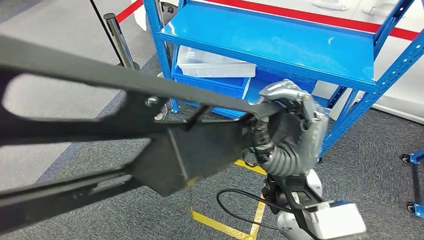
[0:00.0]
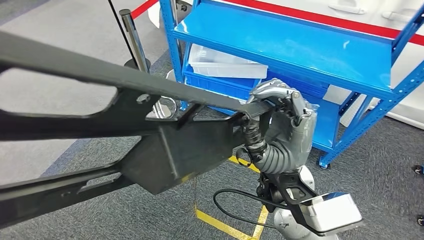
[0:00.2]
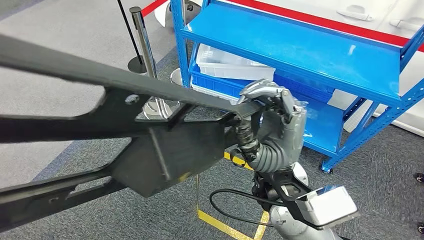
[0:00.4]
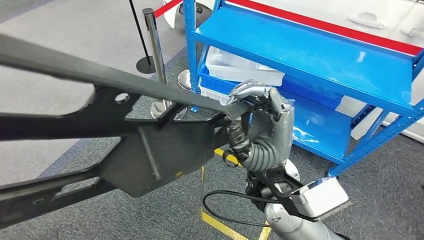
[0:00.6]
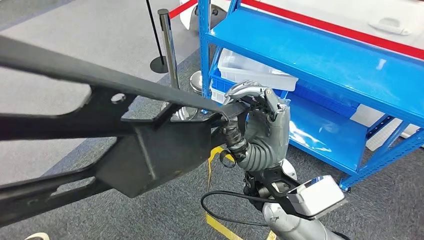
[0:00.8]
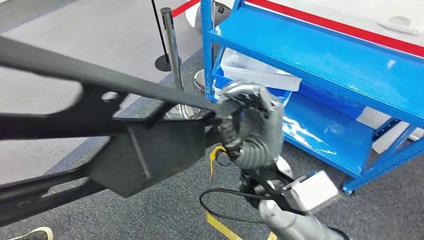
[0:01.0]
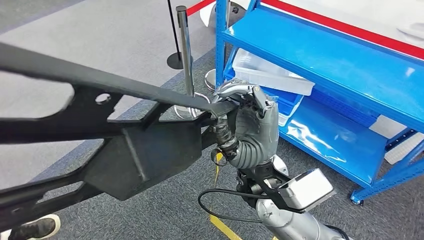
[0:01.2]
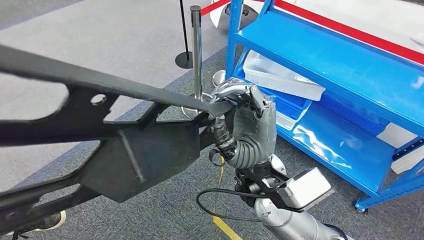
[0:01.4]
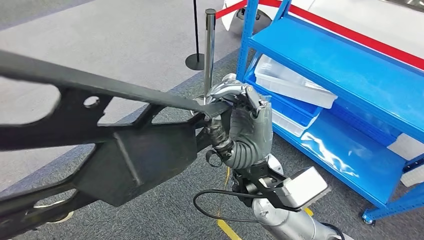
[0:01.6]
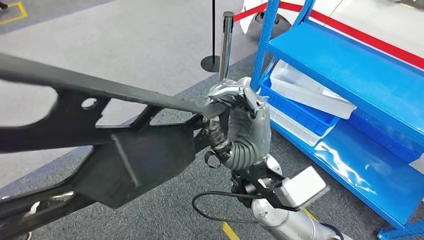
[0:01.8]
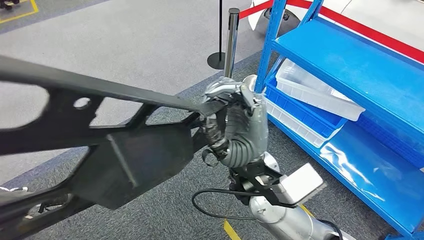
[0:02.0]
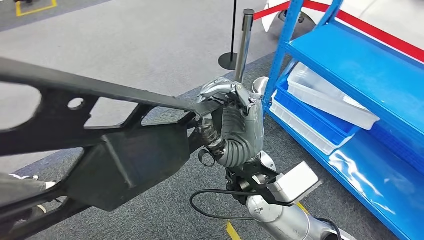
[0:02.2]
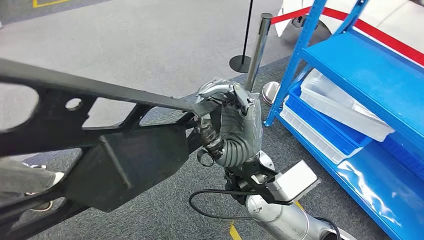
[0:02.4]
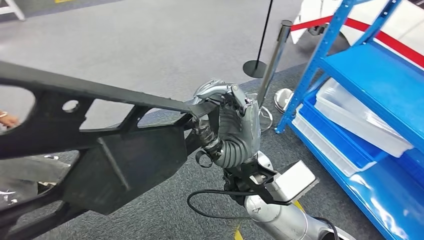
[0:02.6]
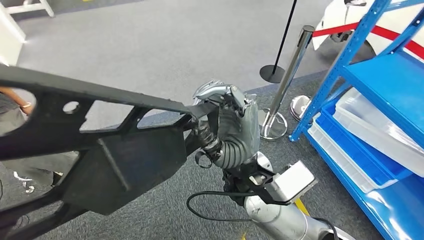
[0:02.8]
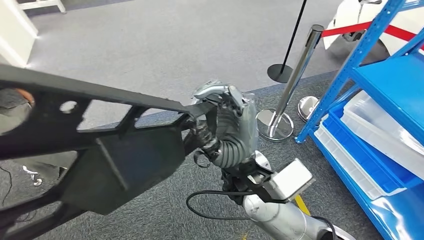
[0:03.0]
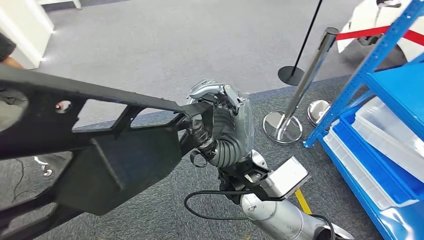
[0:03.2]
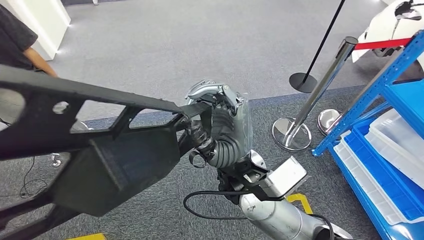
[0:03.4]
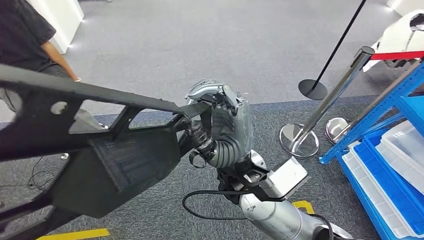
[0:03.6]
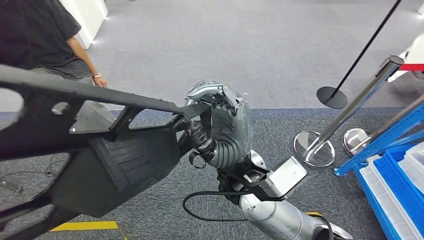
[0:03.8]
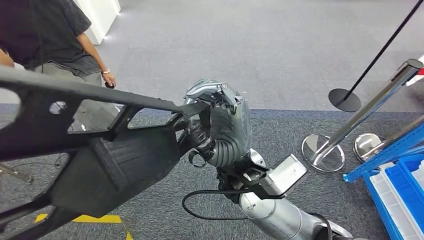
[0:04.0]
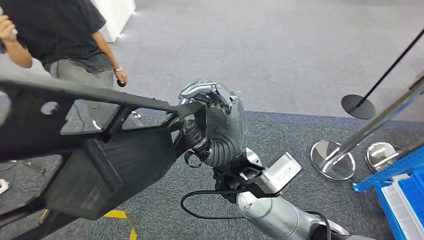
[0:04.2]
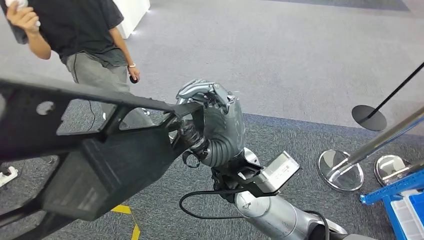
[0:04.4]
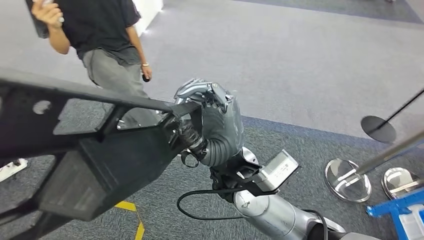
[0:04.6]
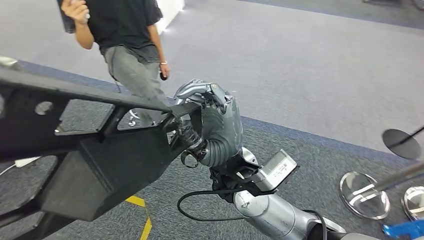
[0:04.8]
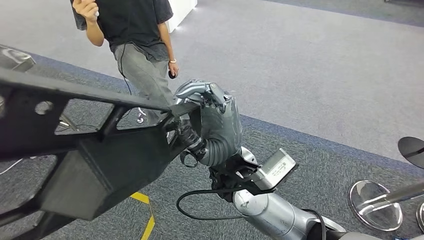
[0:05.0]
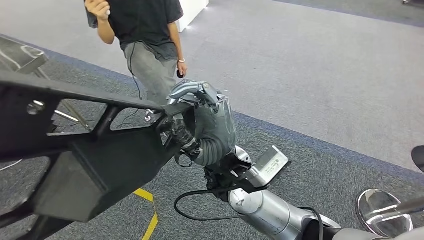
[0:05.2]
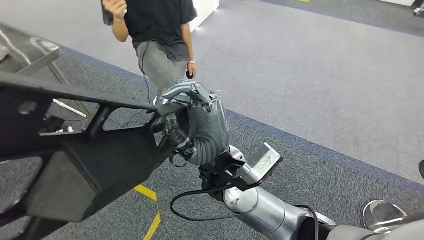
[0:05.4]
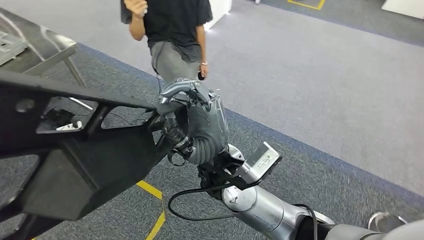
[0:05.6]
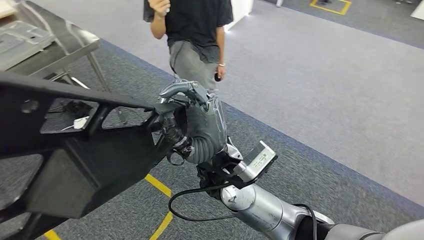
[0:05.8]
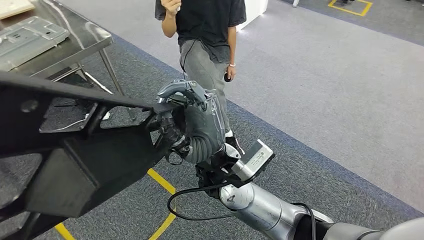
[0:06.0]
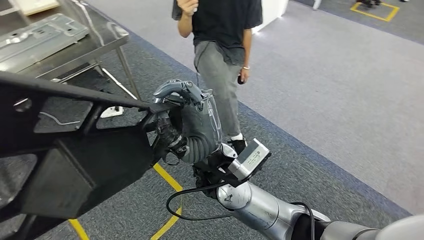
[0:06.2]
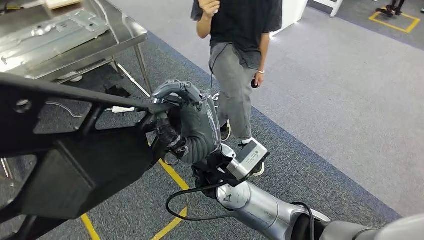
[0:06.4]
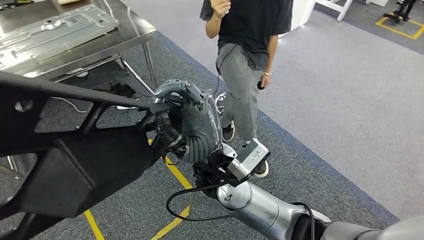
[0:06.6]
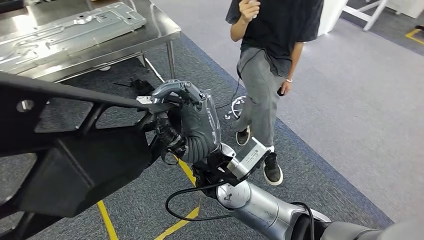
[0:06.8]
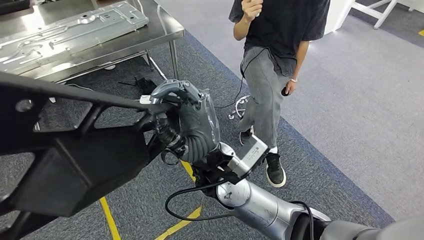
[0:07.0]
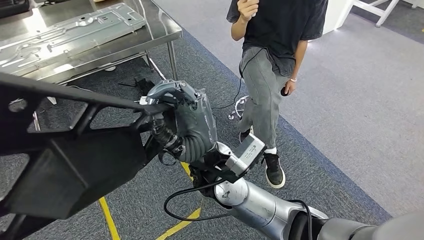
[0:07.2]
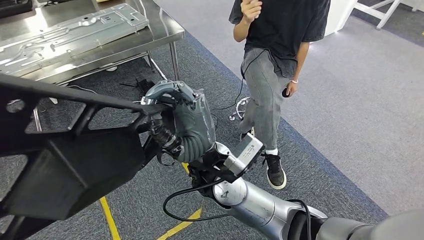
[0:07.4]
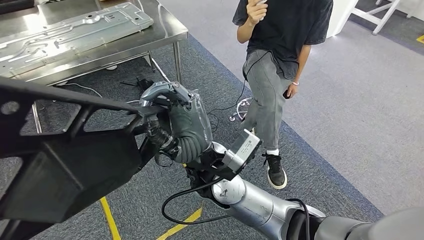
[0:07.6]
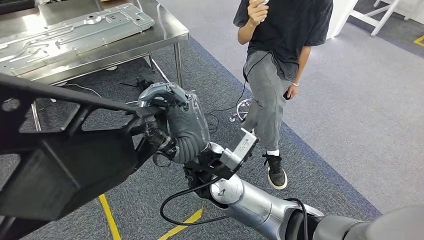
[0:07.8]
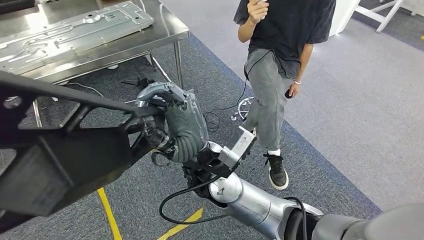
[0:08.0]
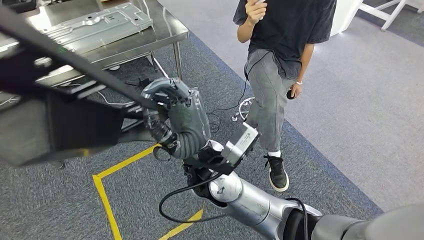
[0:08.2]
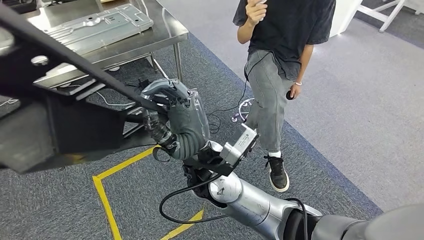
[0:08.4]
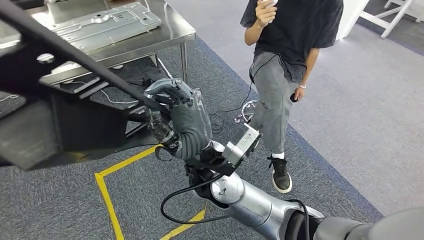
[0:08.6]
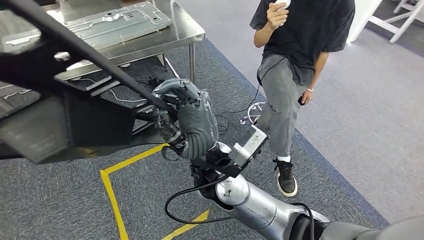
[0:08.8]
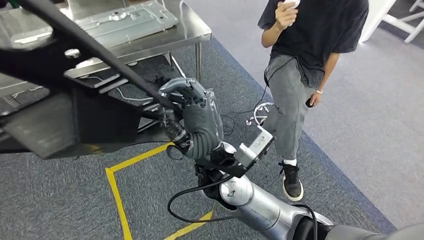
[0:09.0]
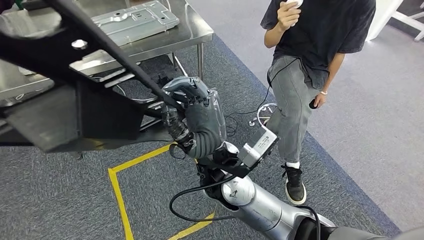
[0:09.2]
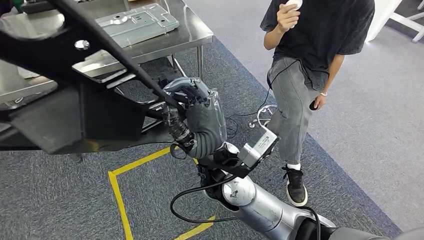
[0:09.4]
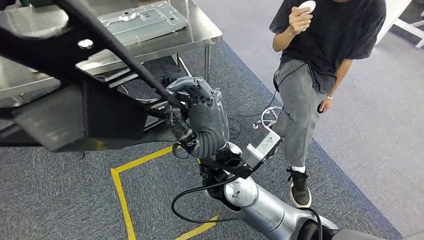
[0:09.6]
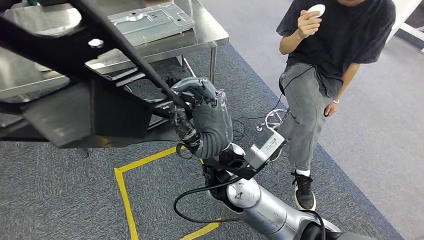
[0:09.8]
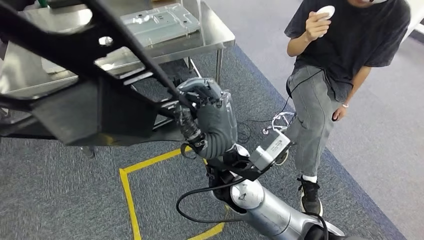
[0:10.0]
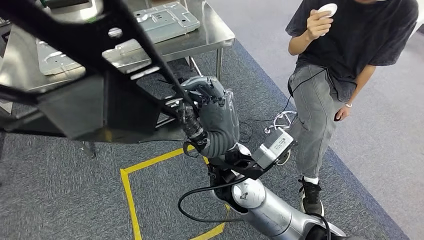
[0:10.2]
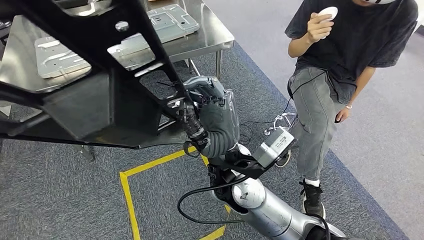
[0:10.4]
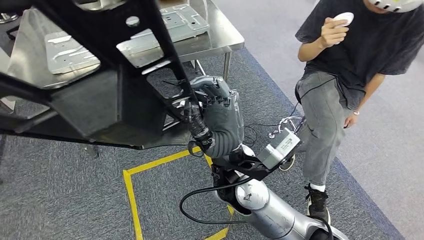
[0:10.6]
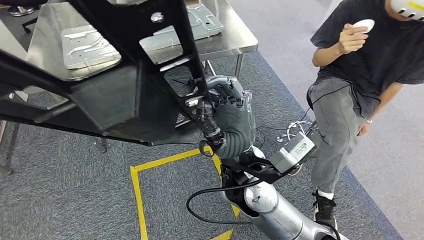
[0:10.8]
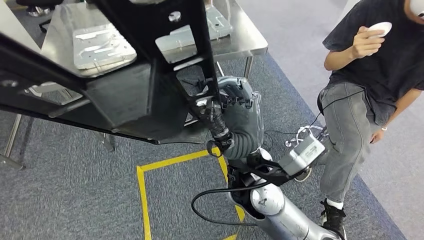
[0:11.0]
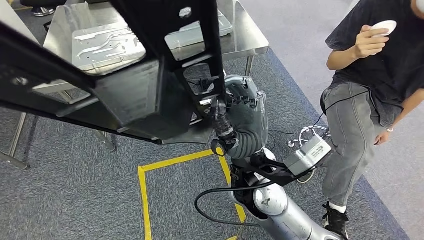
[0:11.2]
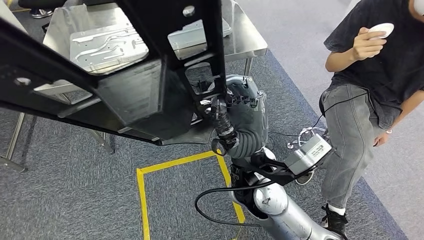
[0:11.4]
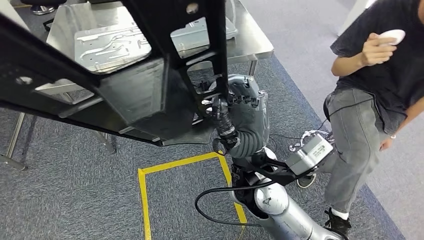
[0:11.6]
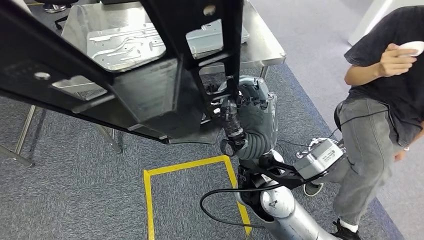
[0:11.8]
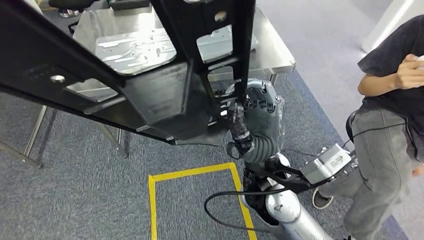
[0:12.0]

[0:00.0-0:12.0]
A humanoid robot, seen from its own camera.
Step, 0:00.0 to 0:11.8: Move the large material to the workbench.

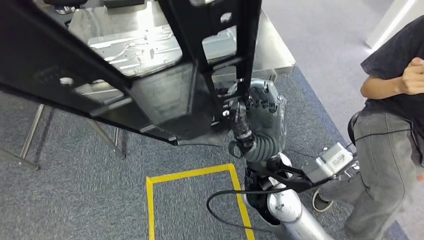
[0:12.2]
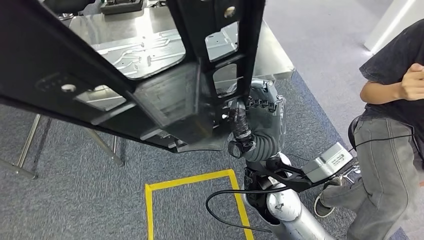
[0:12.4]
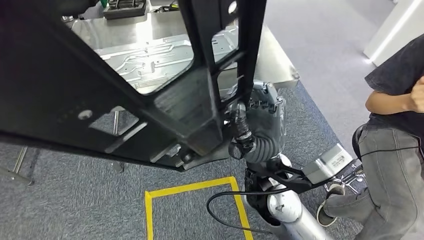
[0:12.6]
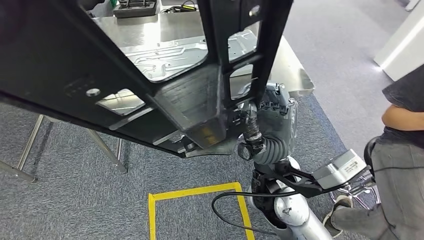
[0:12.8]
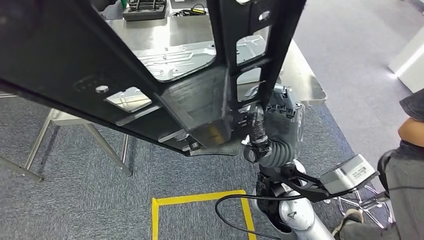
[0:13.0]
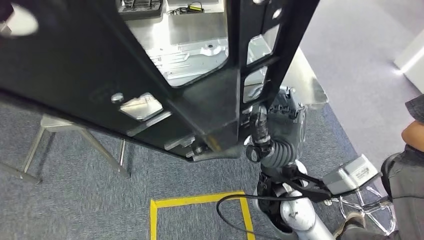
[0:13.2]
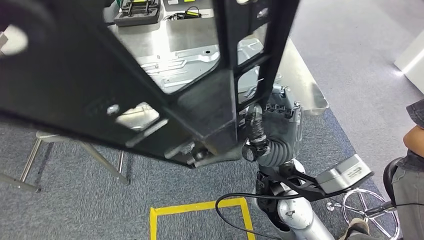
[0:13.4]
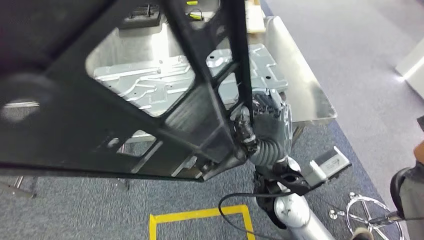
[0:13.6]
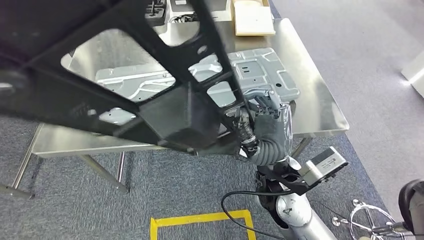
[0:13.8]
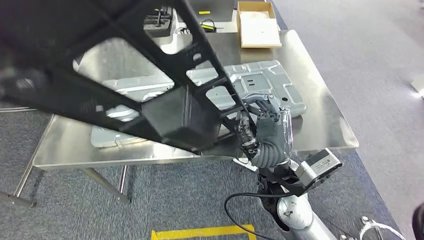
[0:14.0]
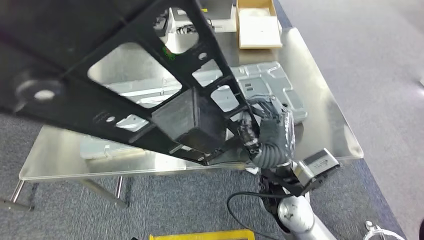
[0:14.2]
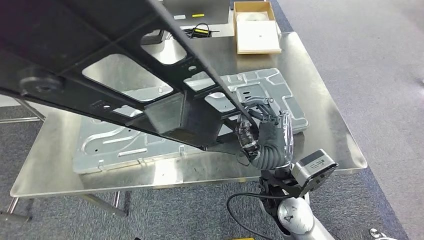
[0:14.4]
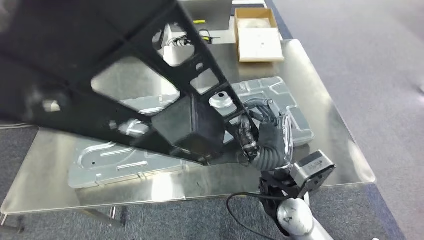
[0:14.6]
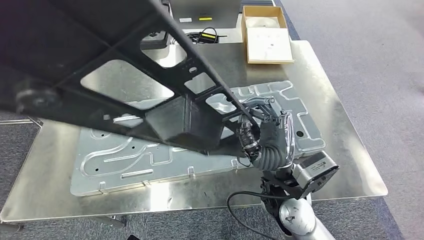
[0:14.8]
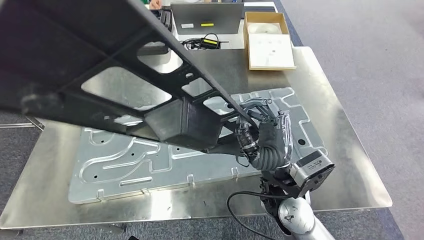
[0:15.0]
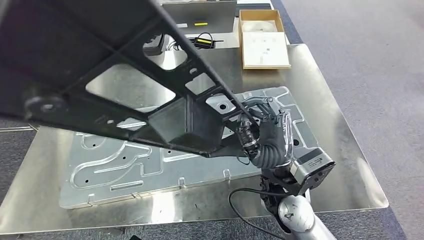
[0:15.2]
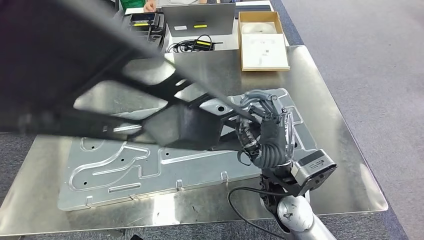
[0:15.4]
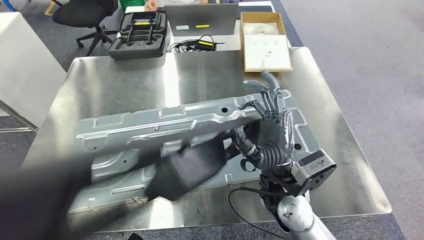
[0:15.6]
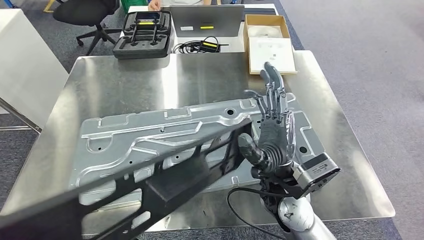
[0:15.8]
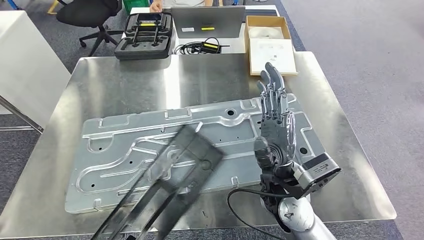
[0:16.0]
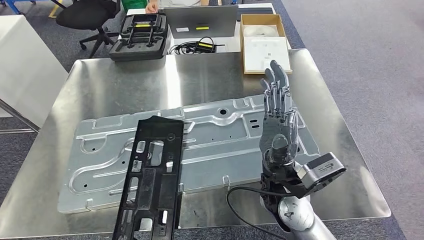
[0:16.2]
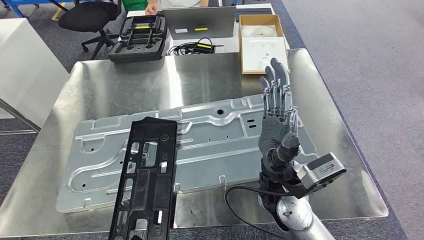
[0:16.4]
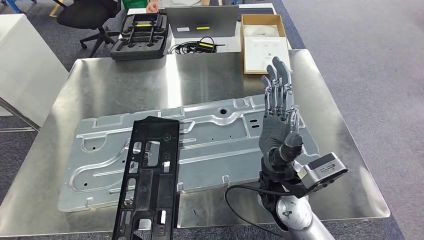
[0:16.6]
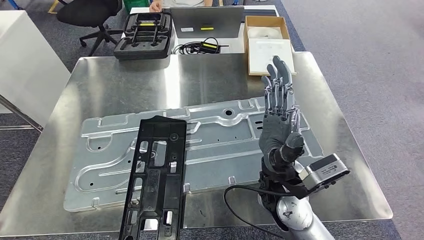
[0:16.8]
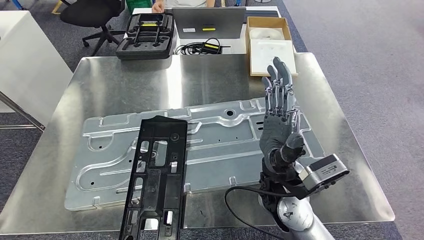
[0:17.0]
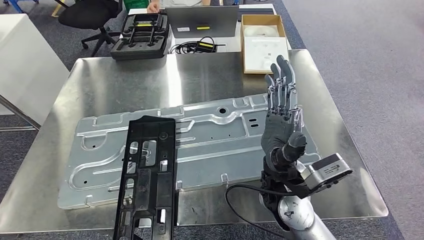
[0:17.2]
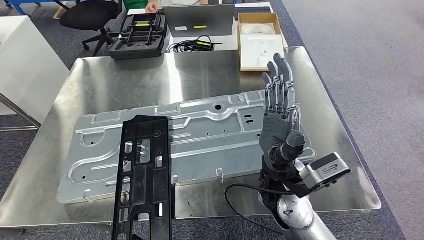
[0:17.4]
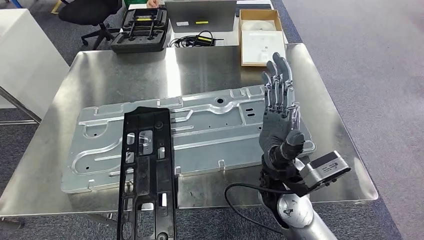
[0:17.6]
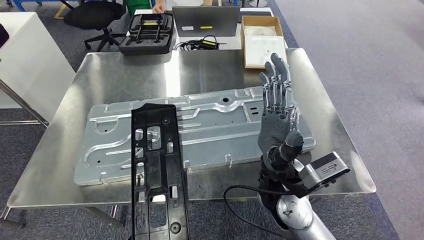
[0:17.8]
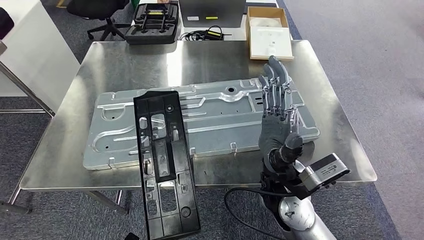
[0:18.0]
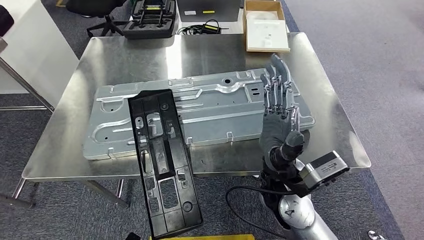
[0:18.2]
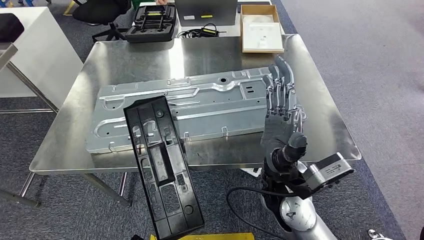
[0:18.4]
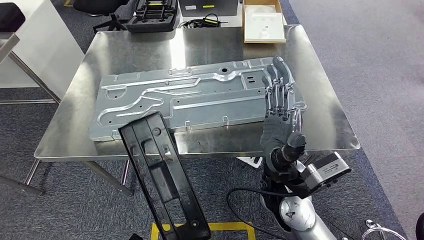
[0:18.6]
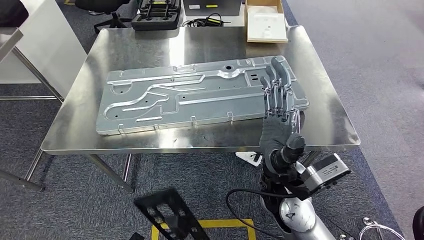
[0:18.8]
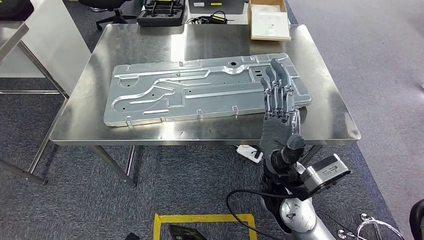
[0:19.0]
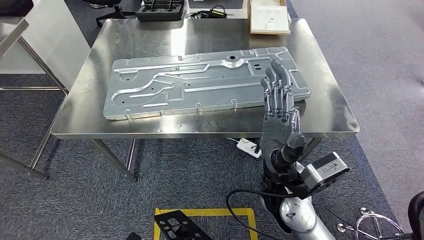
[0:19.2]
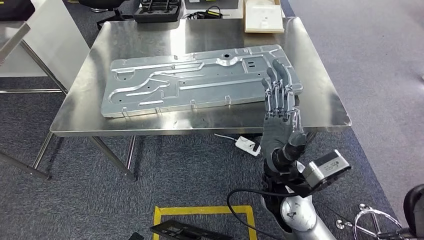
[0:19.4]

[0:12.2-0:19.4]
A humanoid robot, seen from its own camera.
Step, 0:12.2 to 0:17.4: Insert the large material into the corresponding slot on the workbench.
